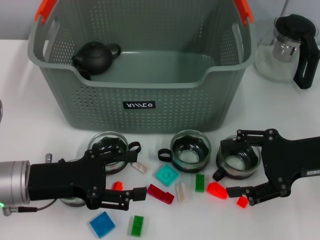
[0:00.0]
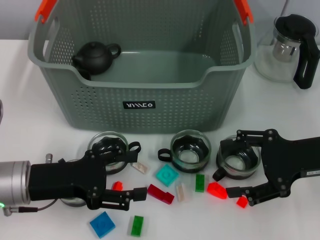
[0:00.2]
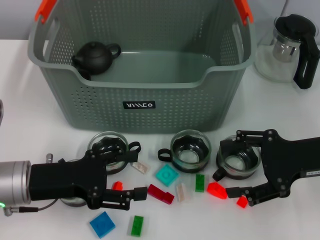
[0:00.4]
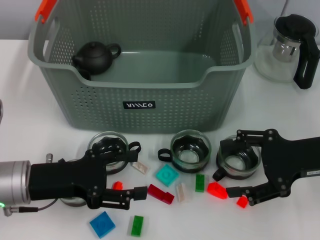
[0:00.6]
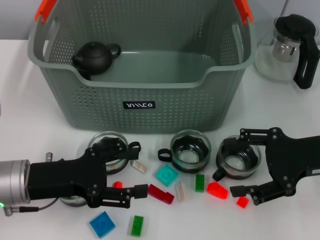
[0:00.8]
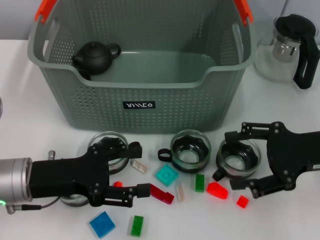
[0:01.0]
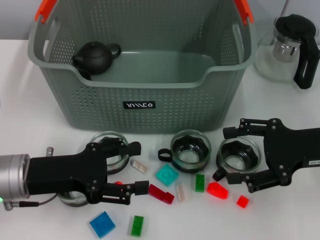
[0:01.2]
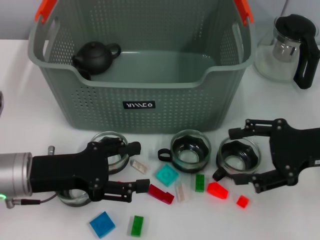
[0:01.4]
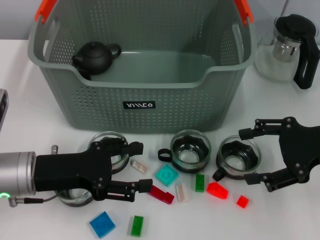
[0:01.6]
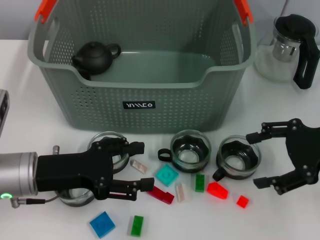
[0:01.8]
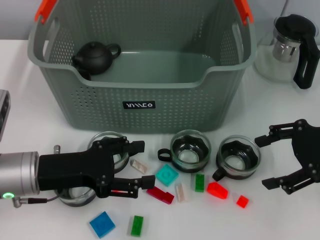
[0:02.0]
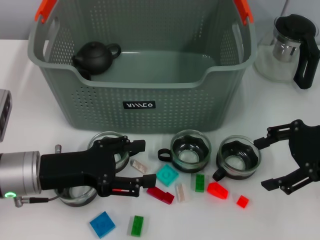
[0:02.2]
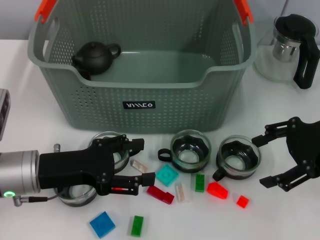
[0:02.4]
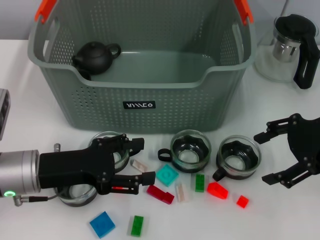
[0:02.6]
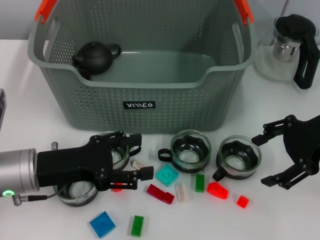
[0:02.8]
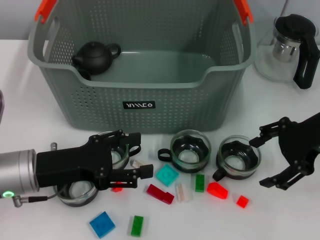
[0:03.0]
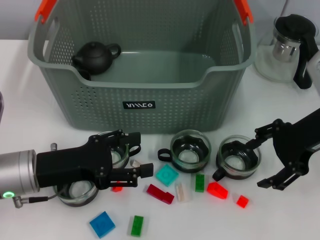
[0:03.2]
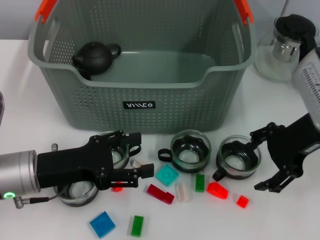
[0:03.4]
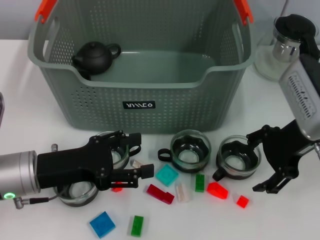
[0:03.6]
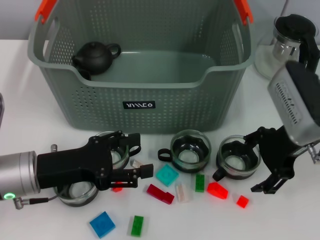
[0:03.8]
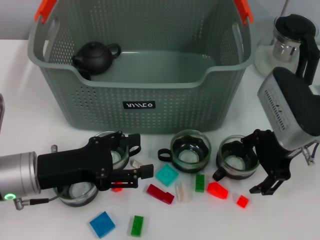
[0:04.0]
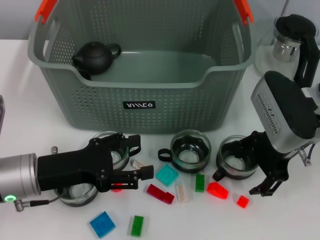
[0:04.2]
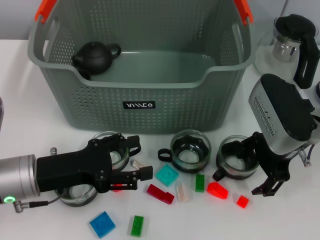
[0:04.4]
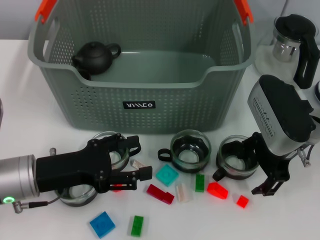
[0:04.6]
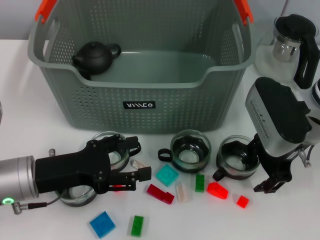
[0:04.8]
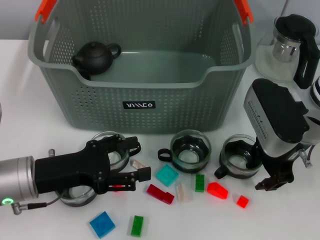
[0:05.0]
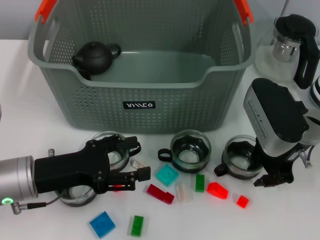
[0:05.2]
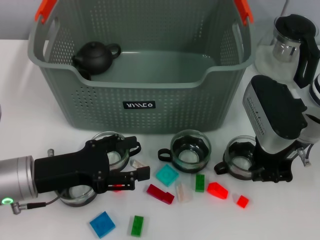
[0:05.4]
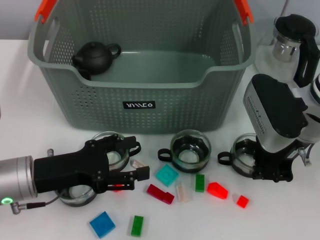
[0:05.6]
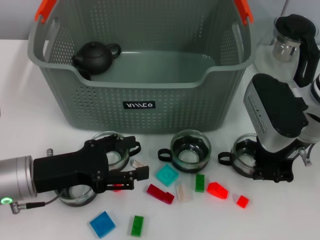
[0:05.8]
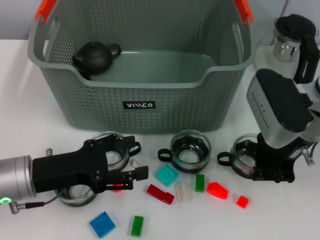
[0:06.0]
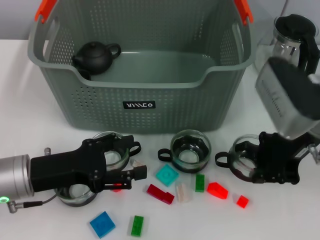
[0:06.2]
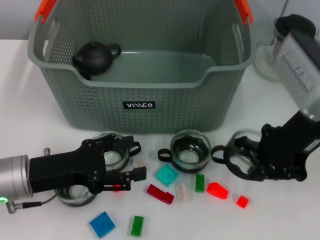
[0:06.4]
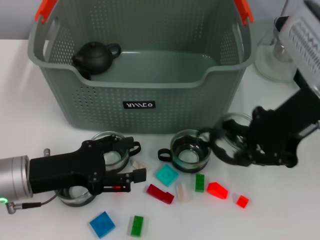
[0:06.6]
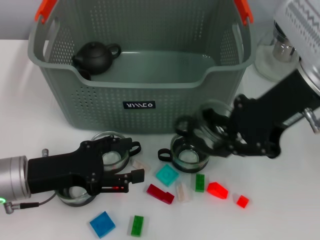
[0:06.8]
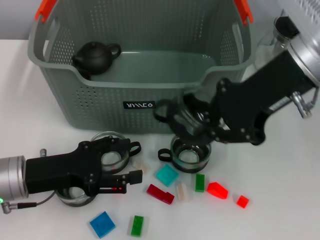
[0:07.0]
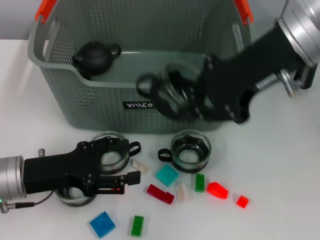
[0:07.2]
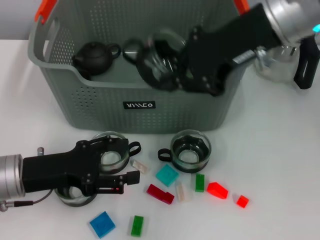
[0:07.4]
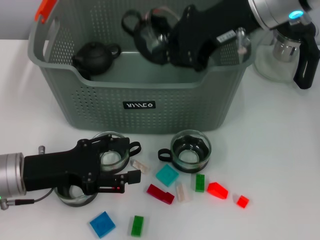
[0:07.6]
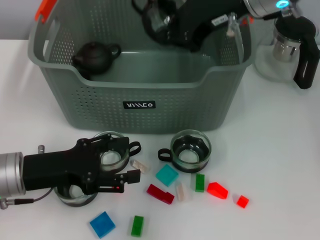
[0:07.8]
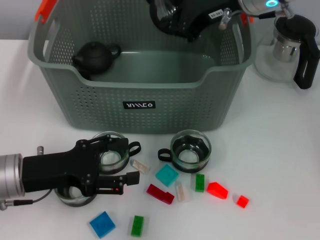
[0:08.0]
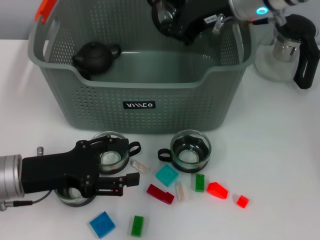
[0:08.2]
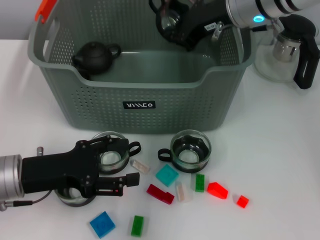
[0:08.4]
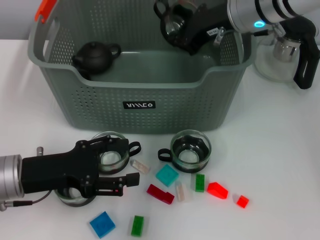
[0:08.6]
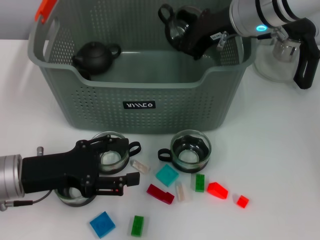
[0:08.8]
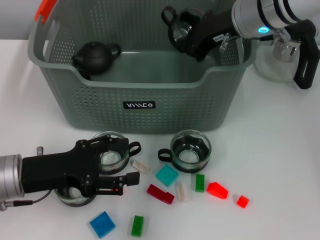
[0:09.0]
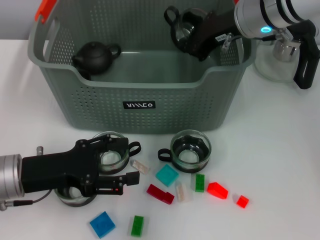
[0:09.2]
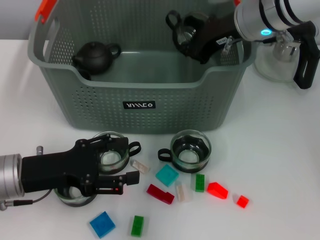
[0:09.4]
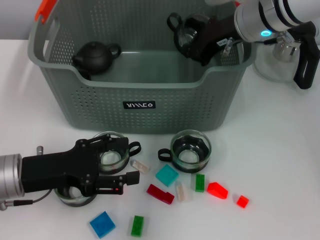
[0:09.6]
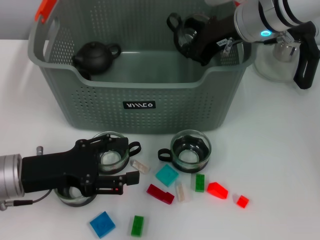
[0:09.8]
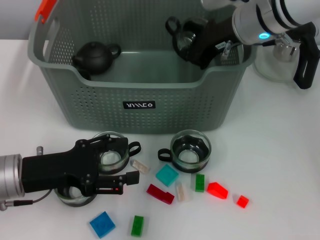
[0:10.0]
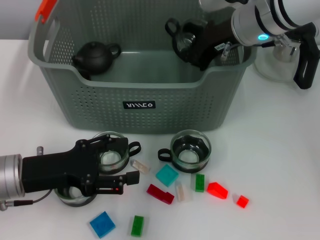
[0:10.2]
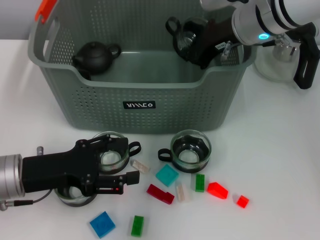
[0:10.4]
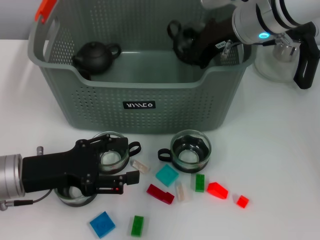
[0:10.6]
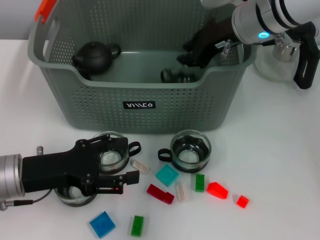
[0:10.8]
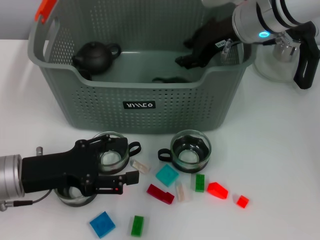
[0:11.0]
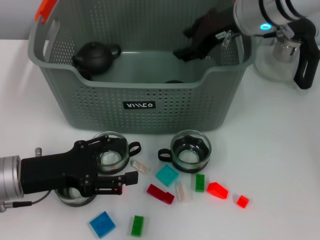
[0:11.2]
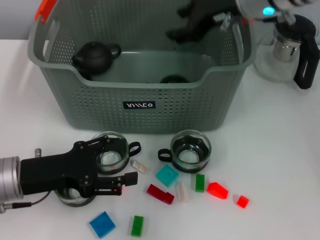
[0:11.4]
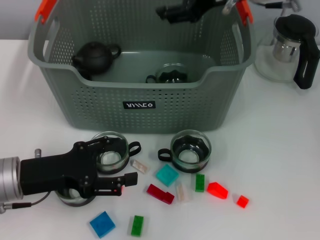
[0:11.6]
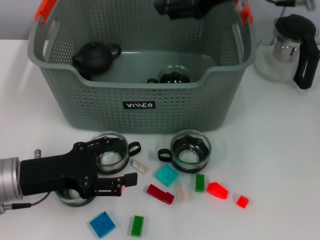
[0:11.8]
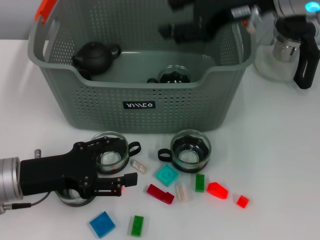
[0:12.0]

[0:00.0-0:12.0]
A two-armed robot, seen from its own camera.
Task of the whole recording: pick up the teacup on the table and place it into the storage bin, pick up the block on the table and place it into the storage bin.
Step, 0.0 to 5.4 s: Grasp the cup with right gripper.
Step, 5.8 to 10.8 s: Place the cup in the storage box with right gripper.
0.0 to 1.6 s: There are only small adjustments of the grippers.
1.6 to 3.0 s: The right gripper moves roughly 5 cm.
3.0 to 4.4 s: The right gripper heads to the left, covering some 5 cm.
4.4 to 6.0 s: The right gripper closes up.
6.0 to 7.6 s: The right gripper shifts about 15 cm upward and to the left.
7.6 to 9.0 s: The right gripper goes approximately 10 cm downward and forward.
9.0 to 10.4 s: Both grippers stay put.
10.4 to 12.0 s: The right gripper is displaced upward and backward by roughly 10 cm, and opens its fingers.

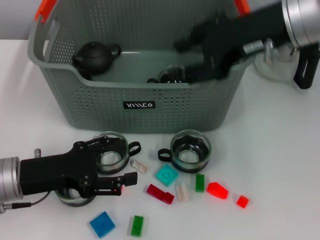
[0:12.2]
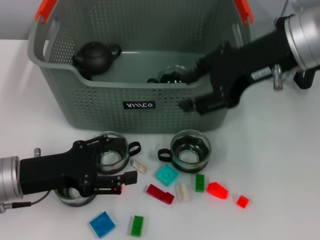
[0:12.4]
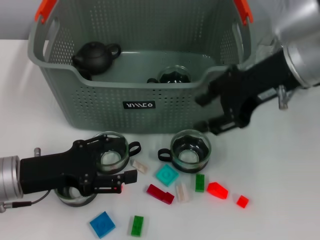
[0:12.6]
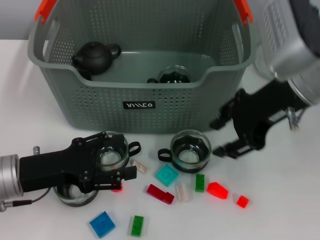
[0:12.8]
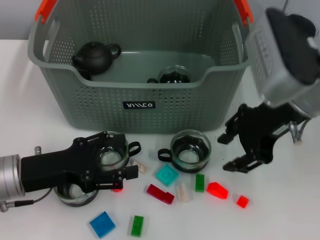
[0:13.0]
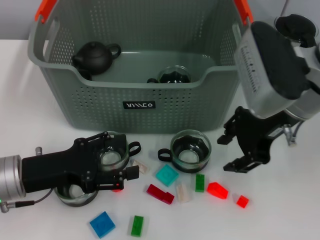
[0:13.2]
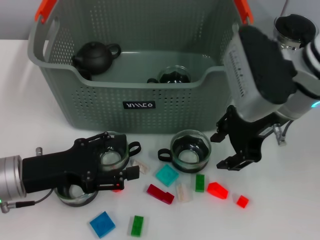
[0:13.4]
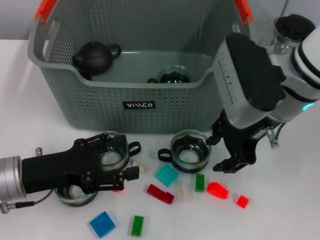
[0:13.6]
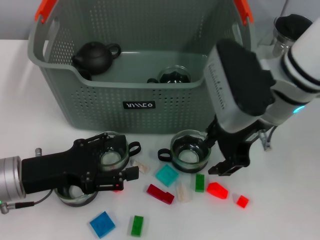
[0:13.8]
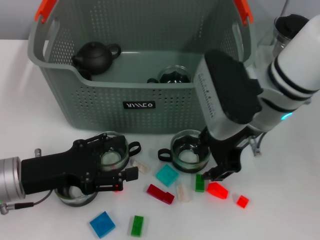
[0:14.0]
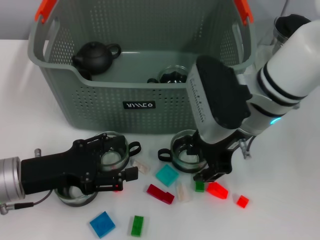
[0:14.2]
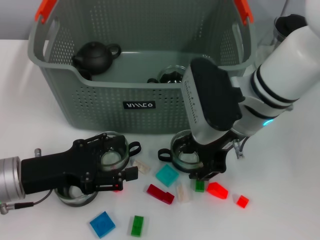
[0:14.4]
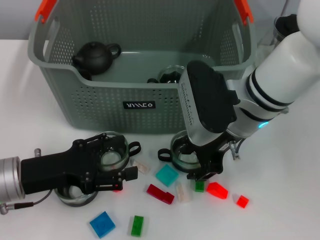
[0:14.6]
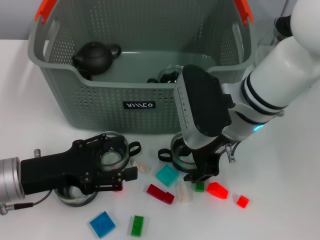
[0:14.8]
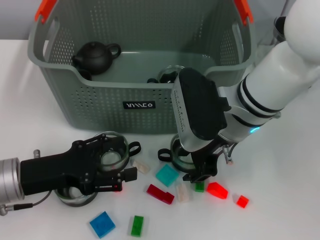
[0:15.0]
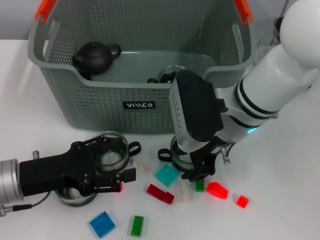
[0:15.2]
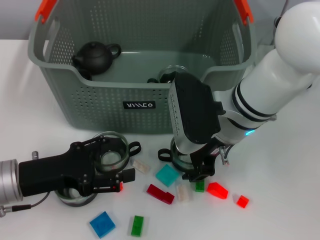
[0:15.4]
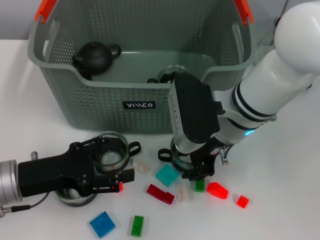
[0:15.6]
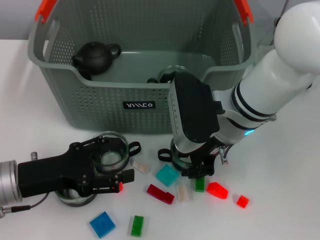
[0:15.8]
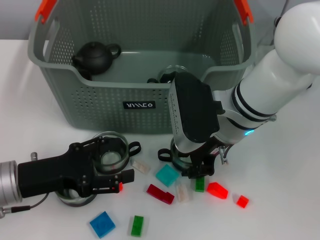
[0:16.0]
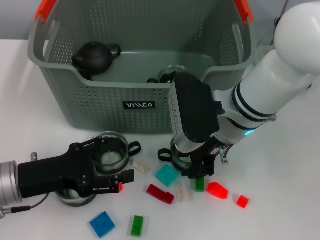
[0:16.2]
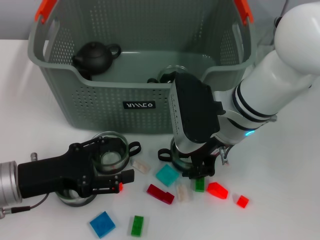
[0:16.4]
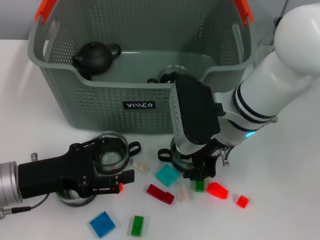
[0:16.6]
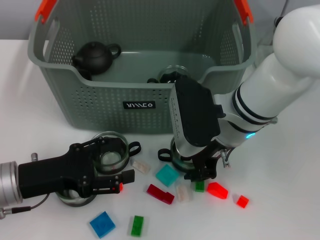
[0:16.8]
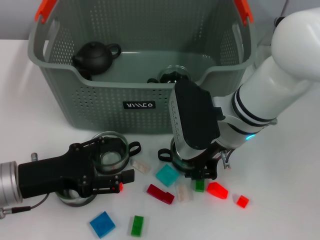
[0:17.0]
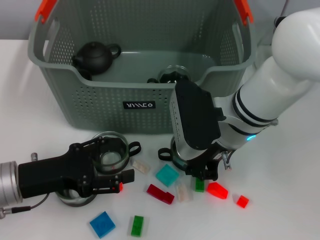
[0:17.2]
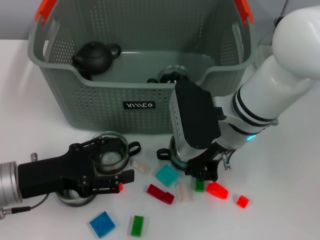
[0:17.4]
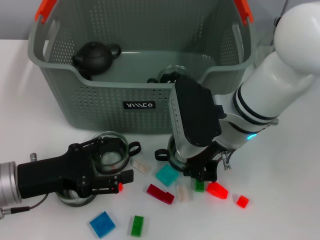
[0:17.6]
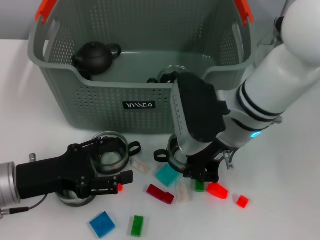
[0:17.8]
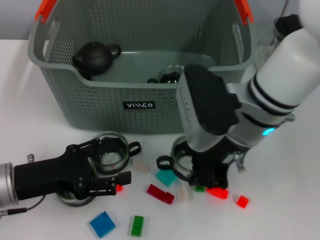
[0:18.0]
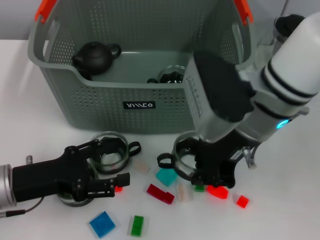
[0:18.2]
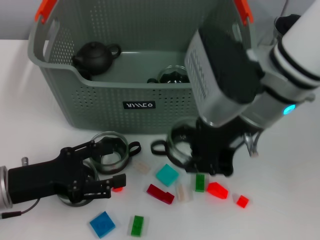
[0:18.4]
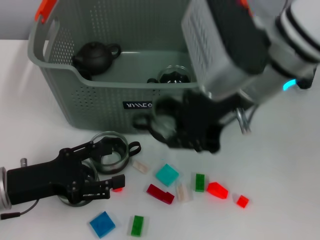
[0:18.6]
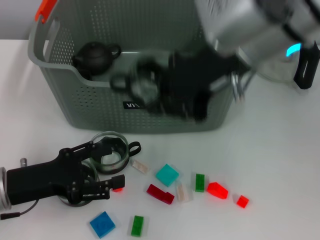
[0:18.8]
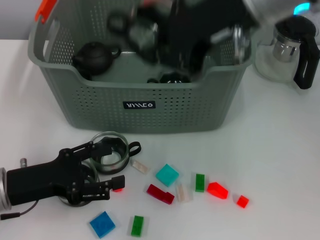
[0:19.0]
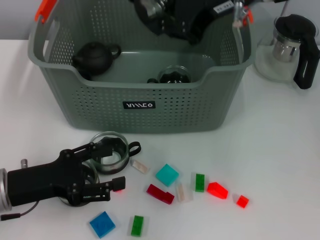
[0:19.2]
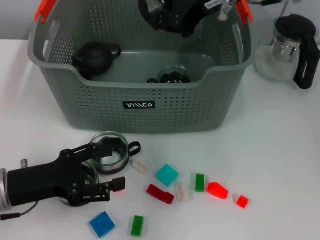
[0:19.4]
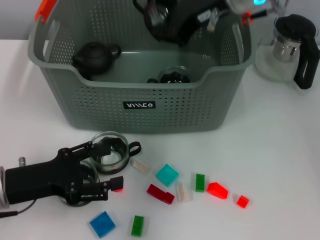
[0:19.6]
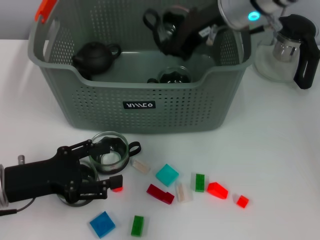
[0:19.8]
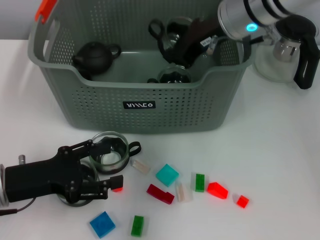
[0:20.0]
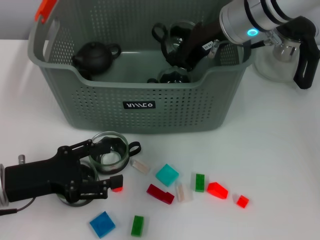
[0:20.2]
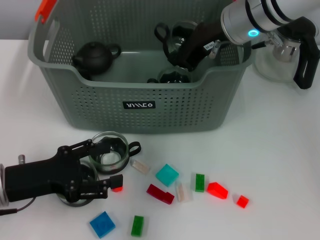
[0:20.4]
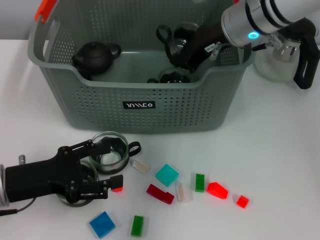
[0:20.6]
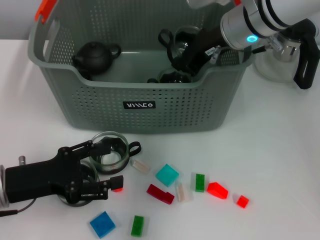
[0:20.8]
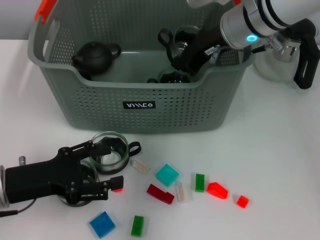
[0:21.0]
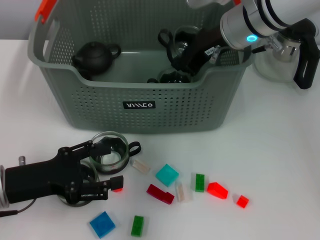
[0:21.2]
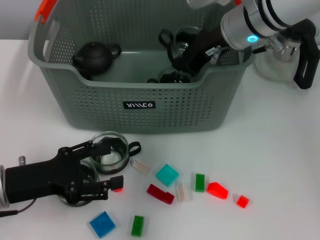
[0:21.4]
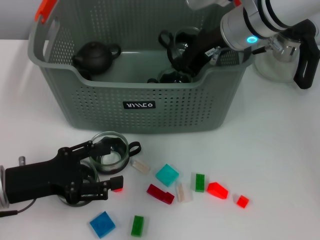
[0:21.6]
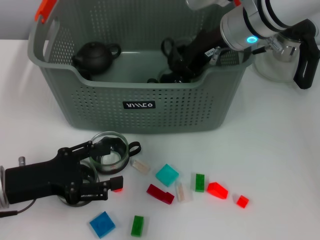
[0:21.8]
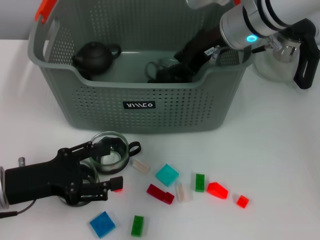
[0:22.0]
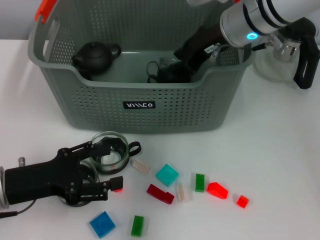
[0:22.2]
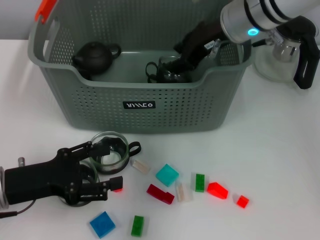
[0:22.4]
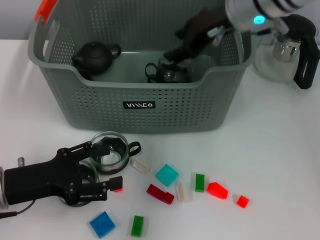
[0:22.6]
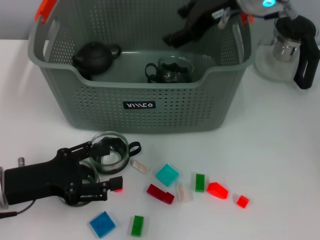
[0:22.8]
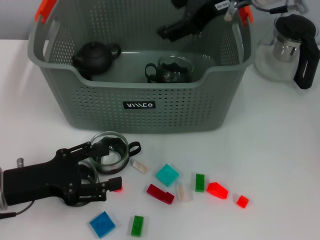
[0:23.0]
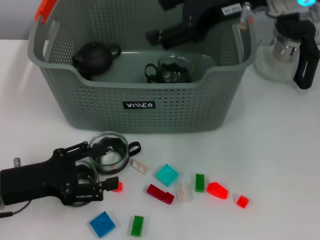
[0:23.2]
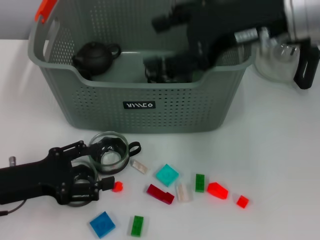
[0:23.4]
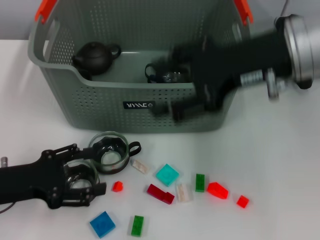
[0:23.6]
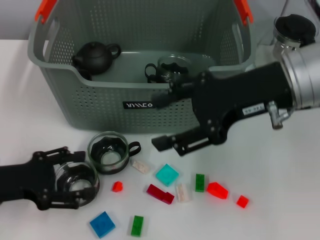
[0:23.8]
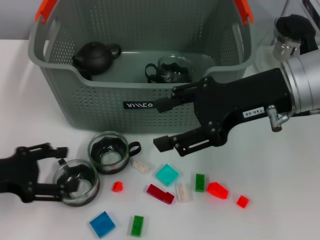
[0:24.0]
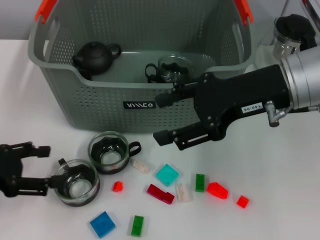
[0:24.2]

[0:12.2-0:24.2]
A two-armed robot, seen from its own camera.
Task of the whole recording: pick up the teacup on the table and place it into the storage bin, pick up the block on the table and place it into the storage bin.
Step, 12.2 to 17.2 s: Grasp the cup with right gripper.
Step, 17.4 to 22.0 s: Place the cup in the storage box with right gripper.
12.2 to 13.8 s: The right gripper is displaced downward by roughly 5 cm.
13.8 to 15.2 s: The right gripper heads downward, covering roughly 5 cm.
15.2 to 16.6 s: Both grippers stay put.
16.6 to 18.2 s: The right gripper shifts approximately 5 cm upward, and closes.
18.2 to 19.8 s: The right gripper goes roughly 10 cm forward, and travels upward and back again, approximately 10 cm each way.
19.8 to 21.2 s: The grippers move only a little.
21.2 to 22.6 s: The right gripper opens its fingers.
22.6 to 24.2 s: The right gripper travels backward and to the right by approximately 15 cm. The left gripper shifts roughly 10 cm to the left and upward.
